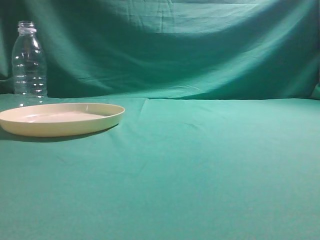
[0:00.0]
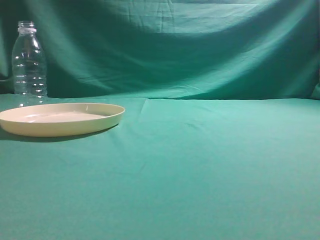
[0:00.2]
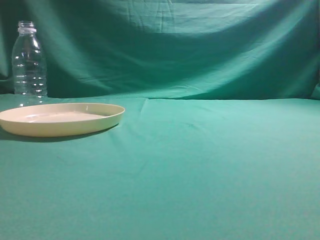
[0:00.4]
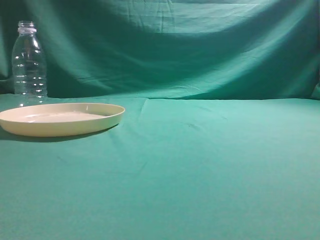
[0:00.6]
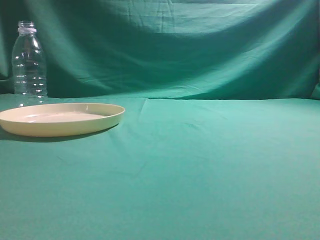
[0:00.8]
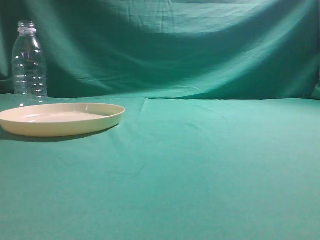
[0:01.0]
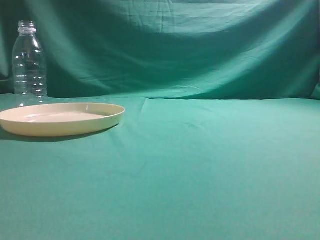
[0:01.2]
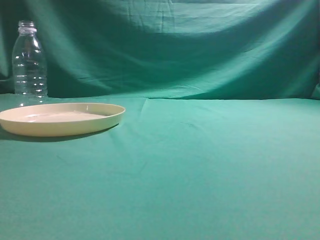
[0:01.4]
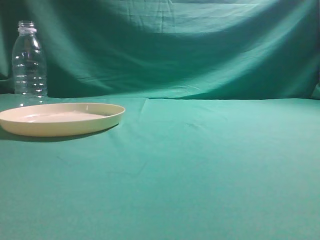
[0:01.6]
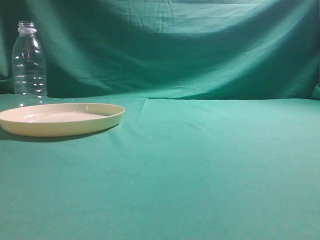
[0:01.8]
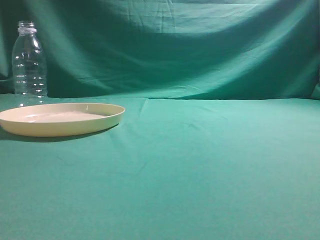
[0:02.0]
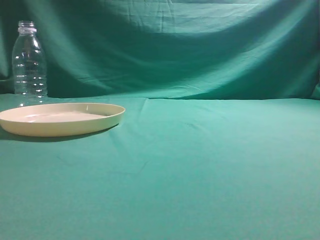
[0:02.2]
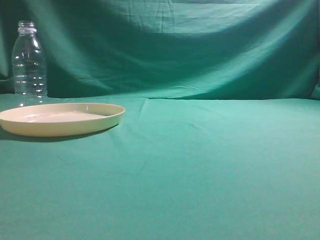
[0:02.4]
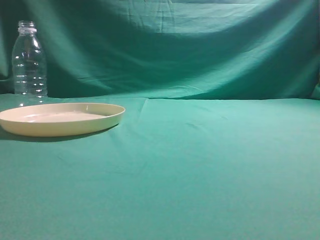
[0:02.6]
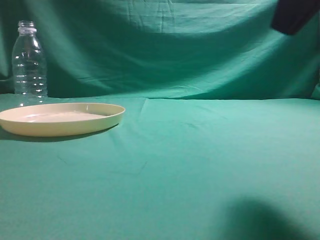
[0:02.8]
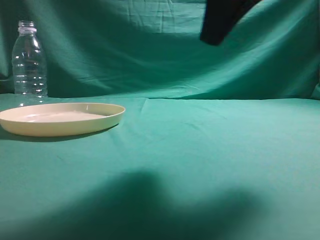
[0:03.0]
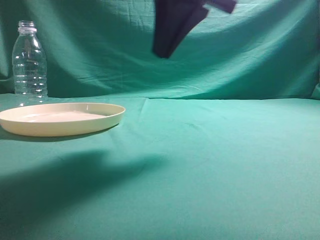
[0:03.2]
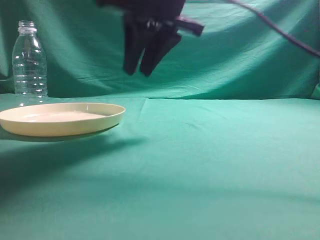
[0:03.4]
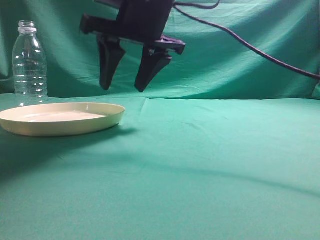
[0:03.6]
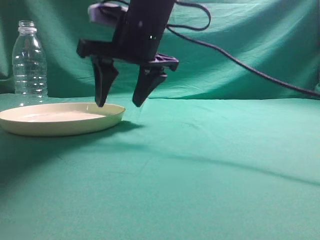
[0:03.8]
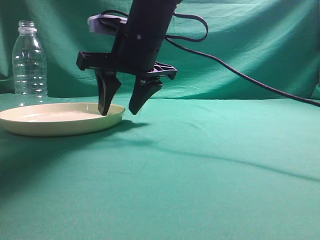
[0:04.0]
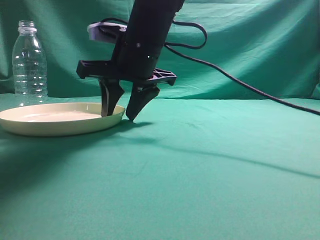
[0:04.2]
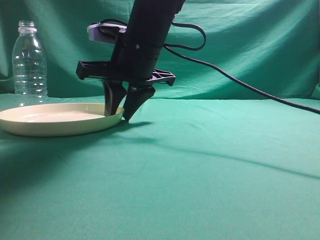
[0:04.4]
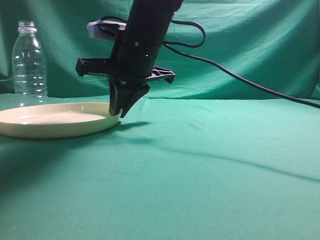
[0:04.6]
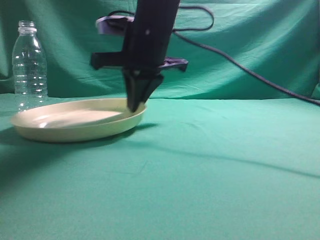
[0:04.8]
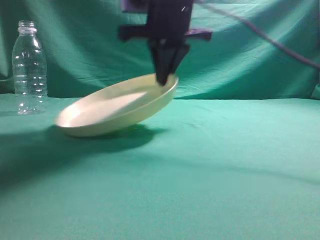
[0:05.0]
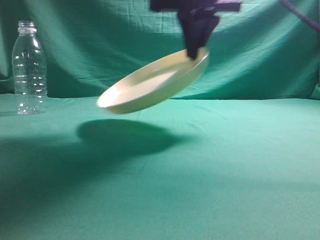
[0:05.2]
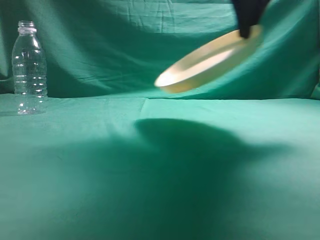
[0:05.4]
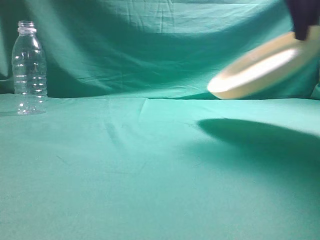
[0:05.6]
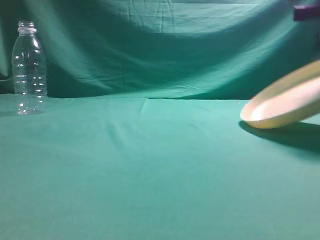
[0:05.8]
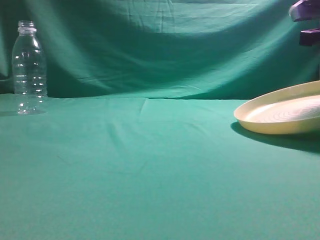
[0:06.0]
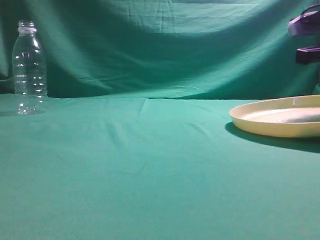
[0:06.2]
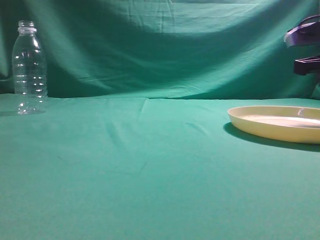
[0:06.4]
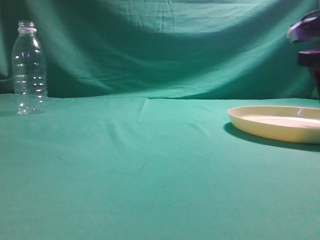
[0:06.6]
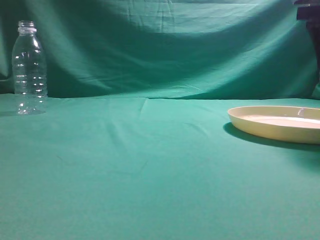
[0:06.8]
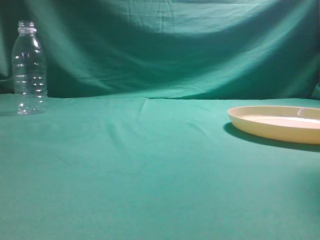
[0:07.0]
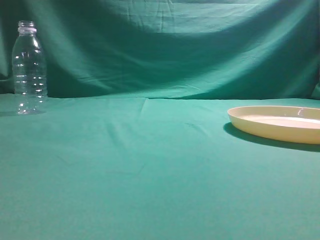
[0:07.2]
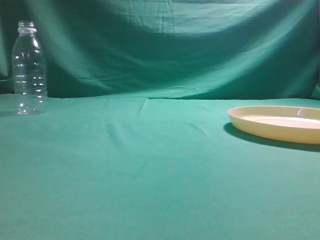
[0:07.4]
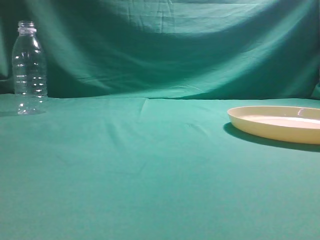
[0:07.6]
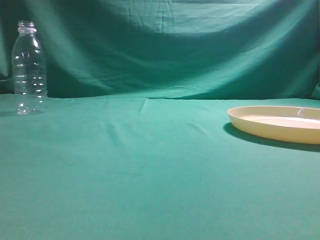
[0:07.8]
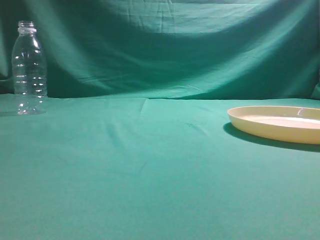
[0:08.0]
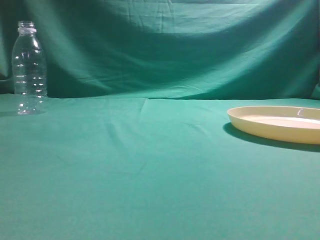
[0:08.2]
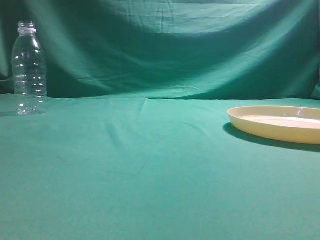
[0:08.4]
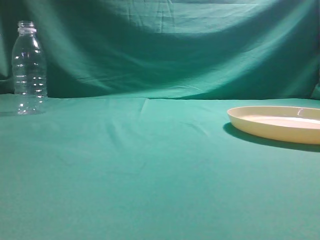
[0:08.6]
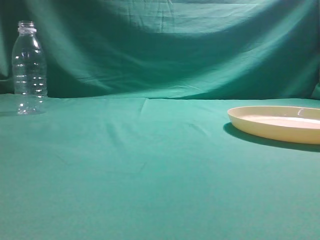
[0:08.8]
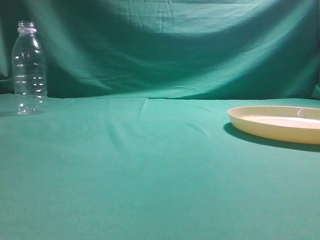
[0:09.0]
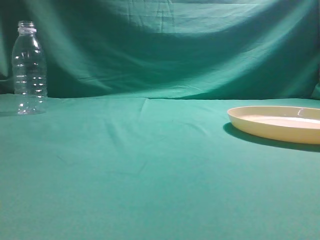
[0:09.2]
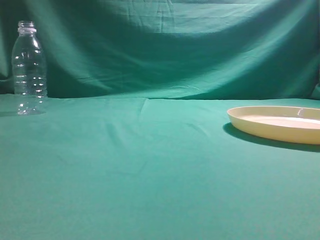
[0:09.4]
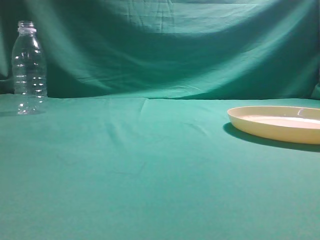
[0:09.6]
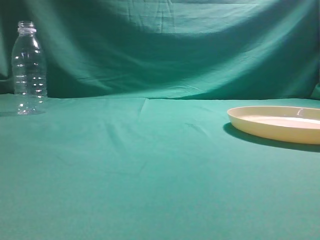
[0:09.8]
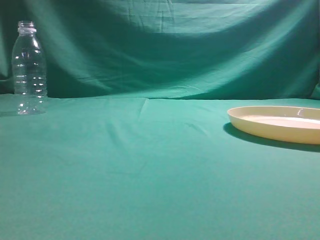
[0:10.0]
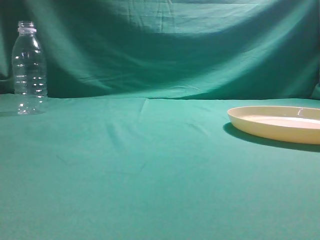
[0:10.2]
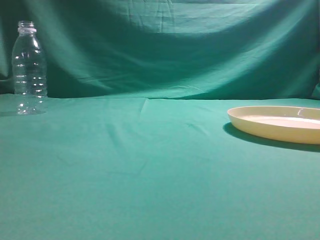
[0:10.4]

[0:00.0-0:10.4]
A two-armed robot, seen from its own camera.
Step, 0:00.0 to 0:05.6: Pick the container that can hold fruits.
Step, 0:05.8 to 0:07.0: Move the picked object to the right side of the table.
0:01.4 to 0:03.0: The right gripper is displaced forward and to the left by roughly 25 cm.
0:03.0 to 0:04.4: The right gripper travels to the left, forward and downward by some 25 cm, and opens up.
0:04.4 to 0:06.0: The right gripper moves to the right, approximately 30 cm, and closes up.
0:06.0 to 0:07.4: The right gripper travels upward and backward by roughly 20 cm, and opens, then closes once more.
